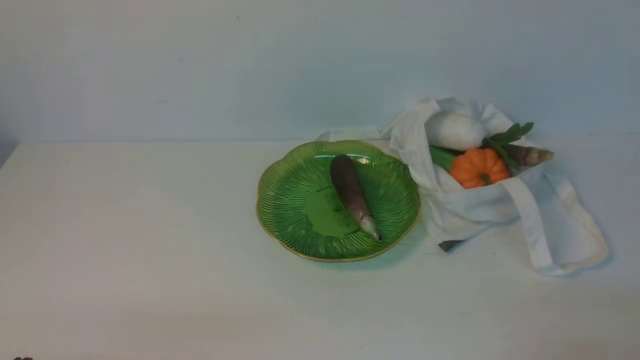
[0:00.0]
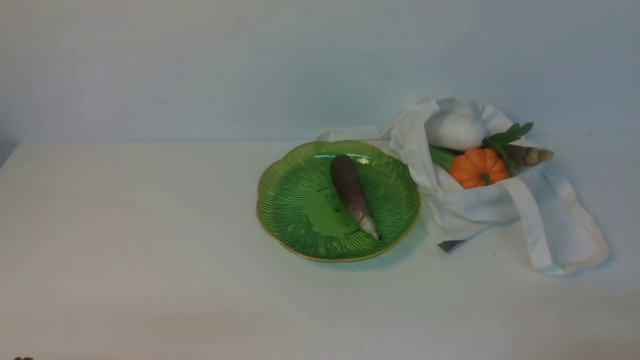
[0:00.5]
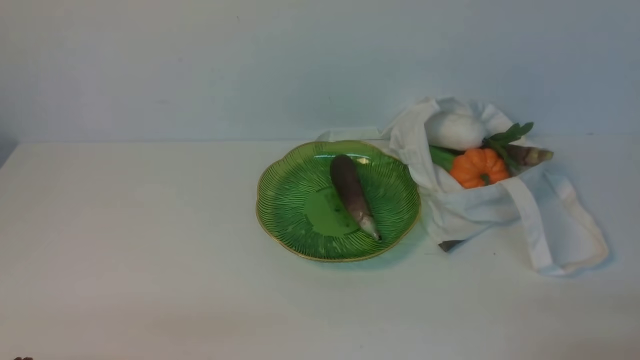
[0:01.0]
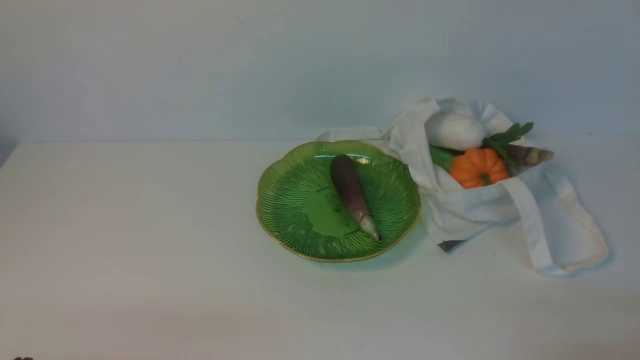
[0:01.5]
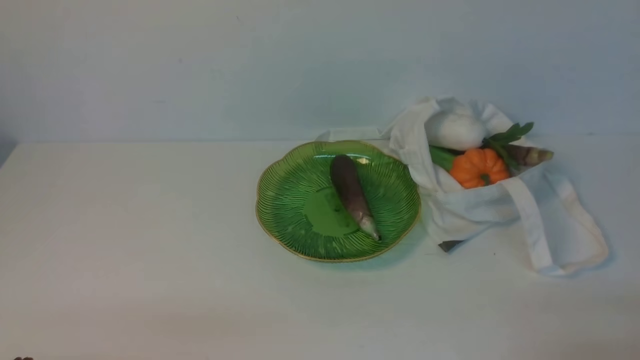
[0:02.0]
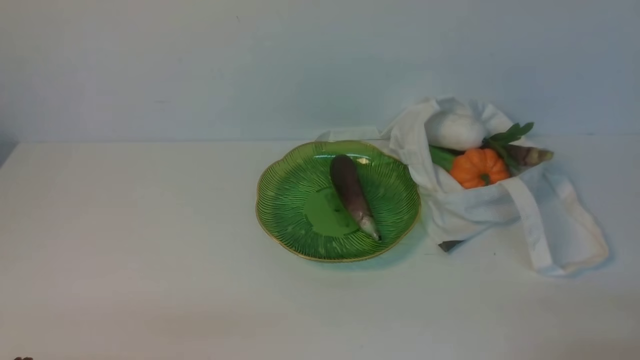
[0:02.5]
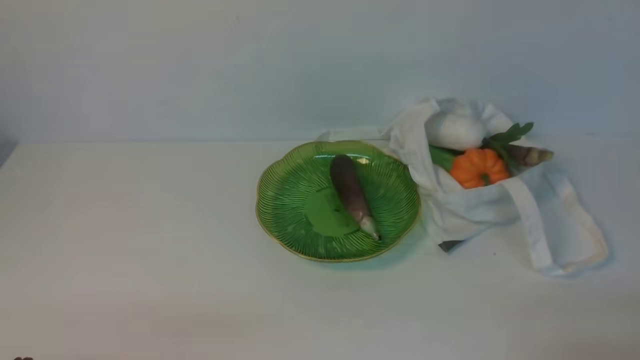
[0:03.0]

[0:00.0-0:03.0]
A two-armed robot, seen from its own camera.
Task of the whole recording: take vegetables from cloth bag on white table place on plate.
0:01.5 to 0:03.0: The two grippers keep their place.
